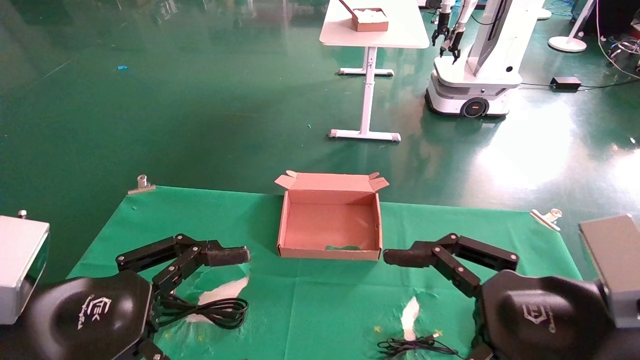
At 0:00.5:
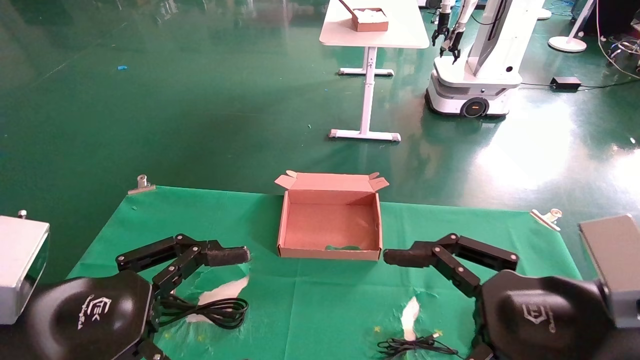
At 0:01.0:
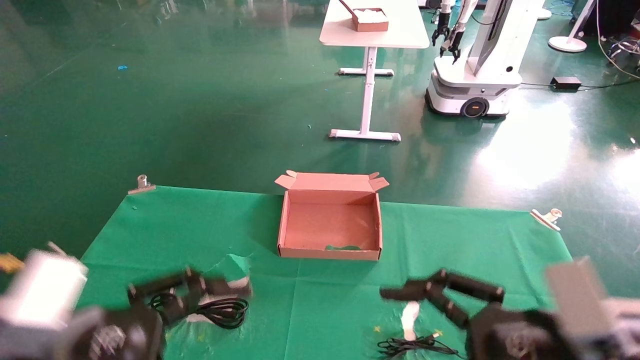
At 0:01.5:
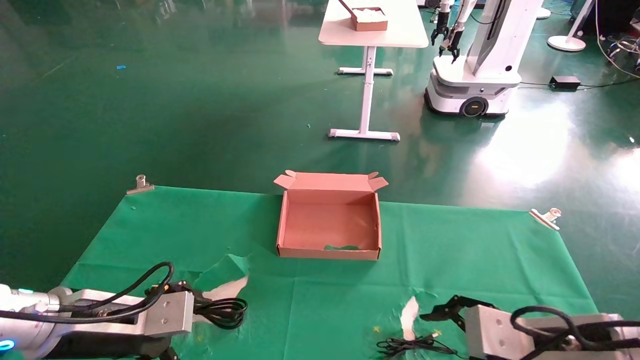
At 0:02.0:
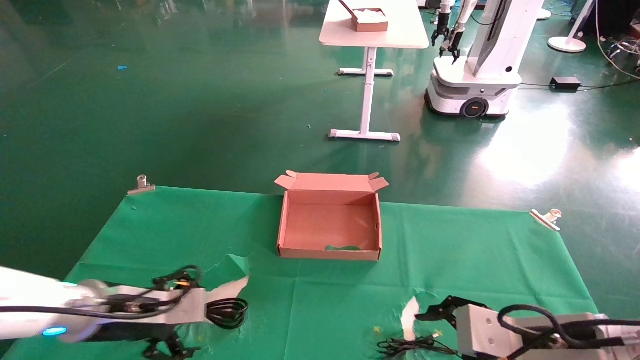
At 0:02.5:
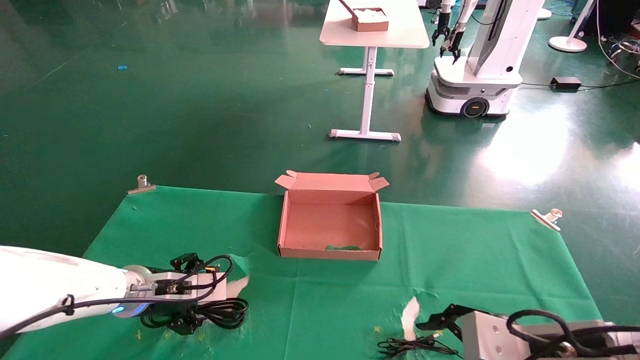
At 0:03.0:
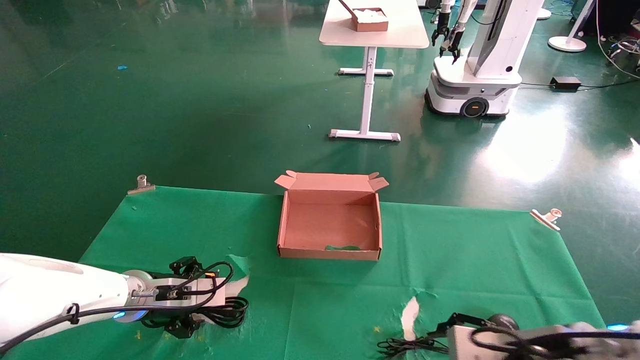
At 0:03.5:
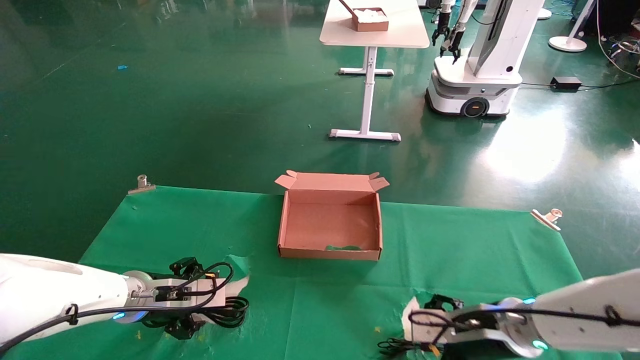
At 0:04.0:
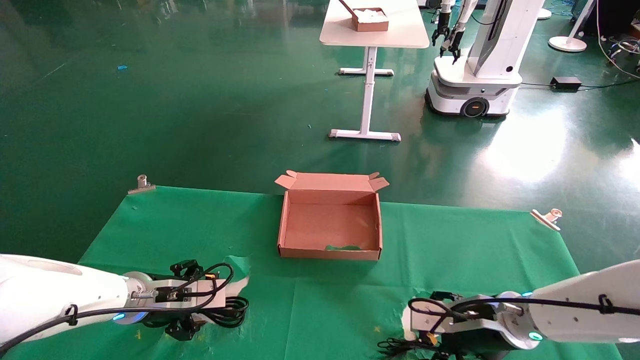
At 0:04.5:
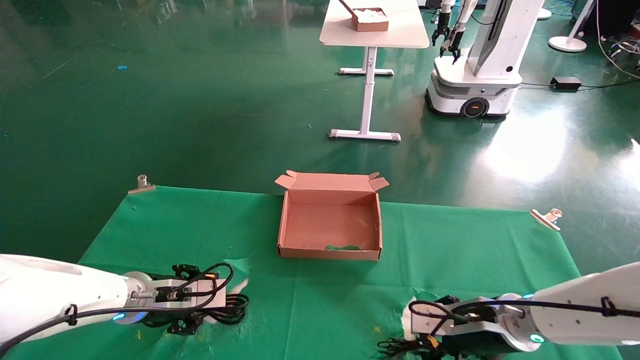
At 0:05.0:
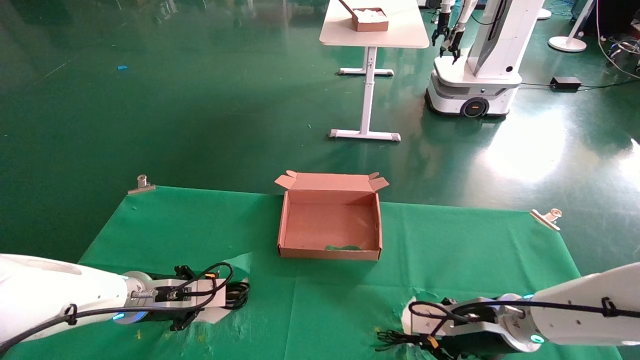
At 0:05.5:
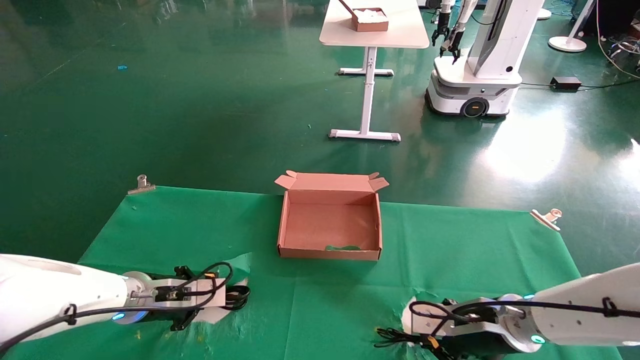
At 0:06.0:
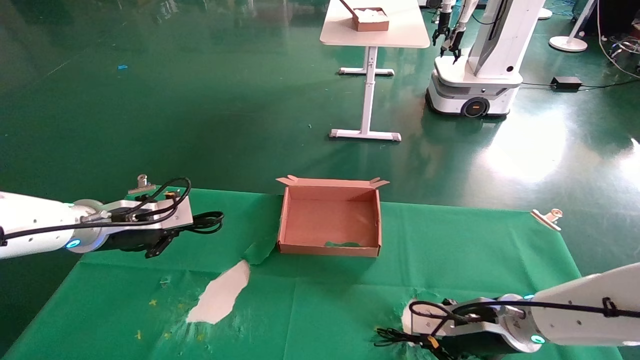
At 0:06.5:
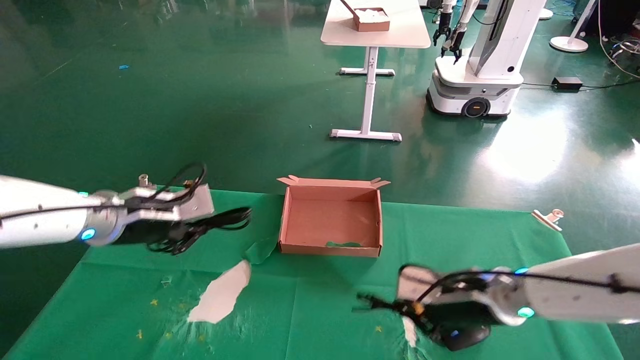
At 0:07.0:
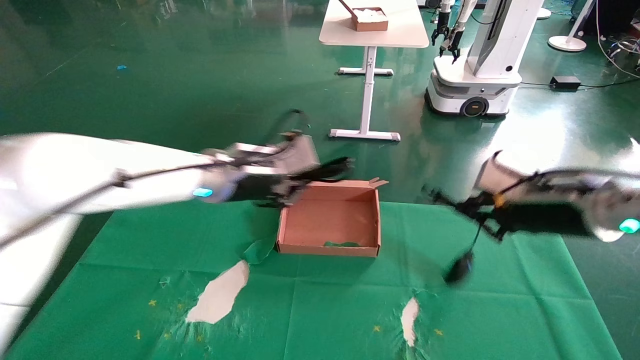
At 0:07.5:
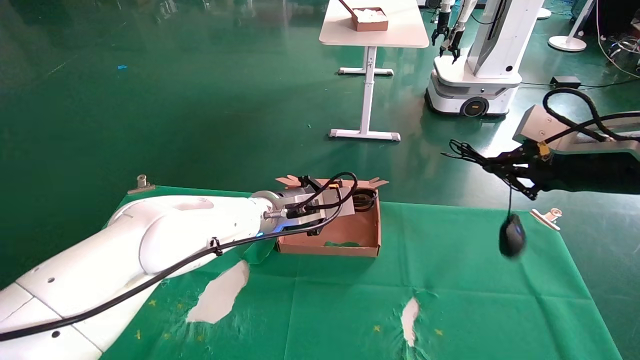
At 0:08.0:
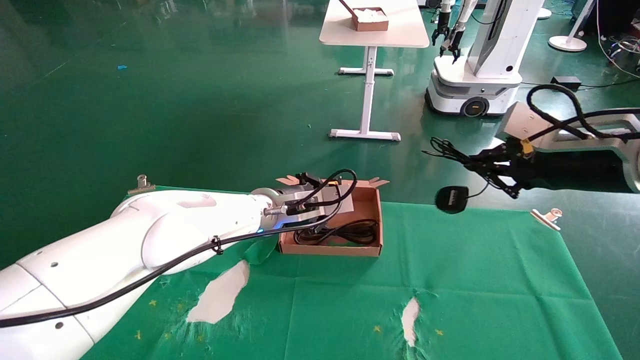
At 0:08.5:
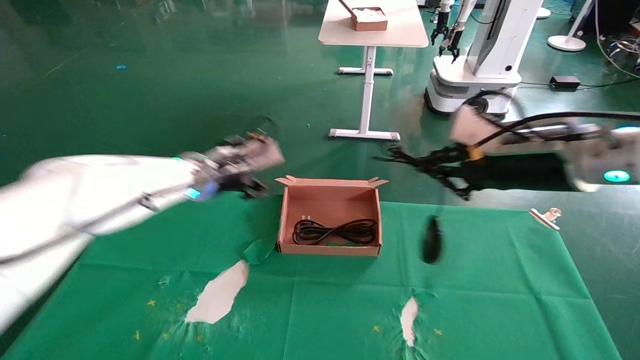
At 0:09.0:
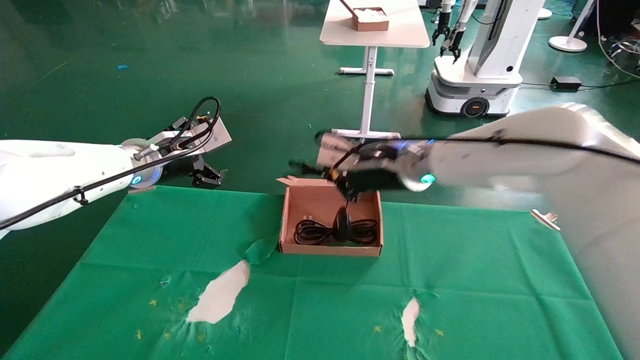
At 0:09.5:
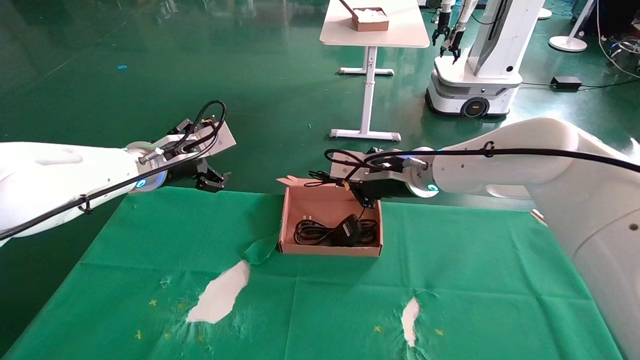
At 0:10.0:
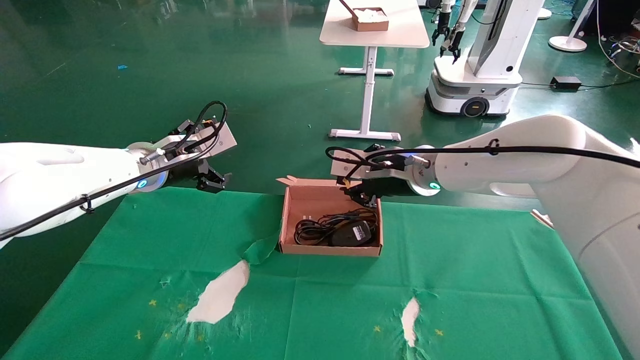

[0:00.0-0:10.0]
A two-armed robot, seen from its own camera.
Step, 0:02.0 to 0:04.5: Grab and lift both the mouse and power cord from the accessory packaging area at the same time.
0:00.0 to 0:02.0: The right gripper shifts roughly 10 cm downward and forward. Meanwhile the left gripper is displaced forward and downward by some 20 cm.
0:02.0 to 0:04.0: The left gripper moves forward, about 5 cm. Meanwhile the right gripper shifts approximately 15 cm forward and downward.
0:04.0 to 0:06.0: The left gripper is displaced upward by roughly 10 cm, and closes its fingers; the right gripper closes up.
0:06.0 to 0:08.0: The left gripper goes some 25 cm to the right; the right gripper heads upward, covering approximately 25 cm.
0:08.0 to 0:10.0: The right gripper heads to the left and forward, covering approximately 25 cm; the left gripper moves to the left and upward, about 20 cm, and opens.

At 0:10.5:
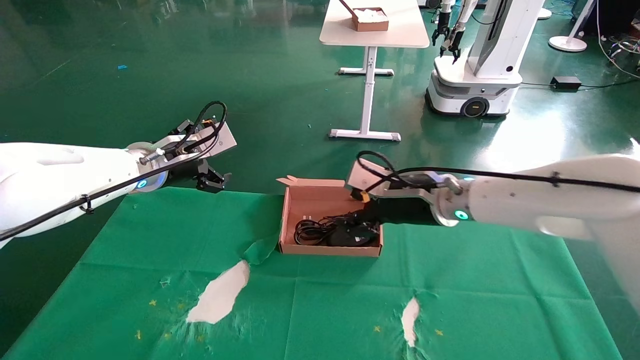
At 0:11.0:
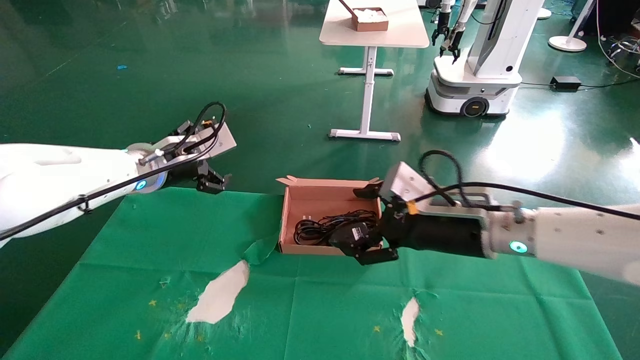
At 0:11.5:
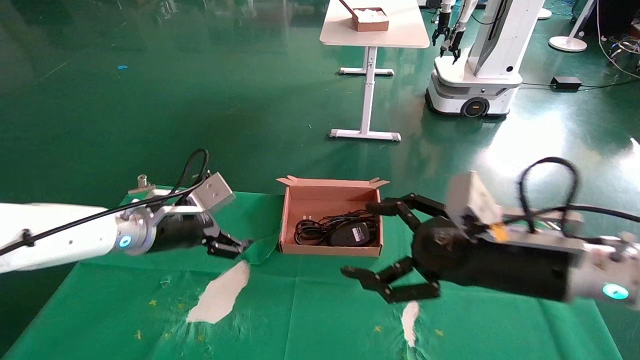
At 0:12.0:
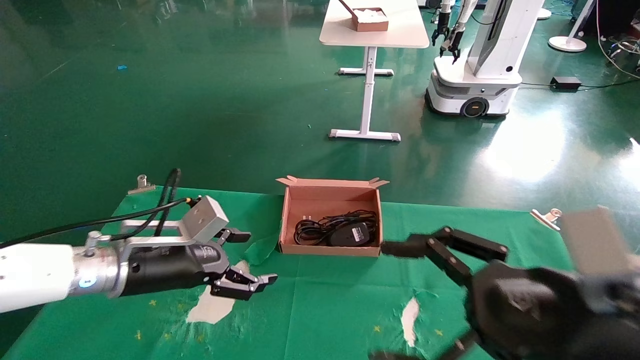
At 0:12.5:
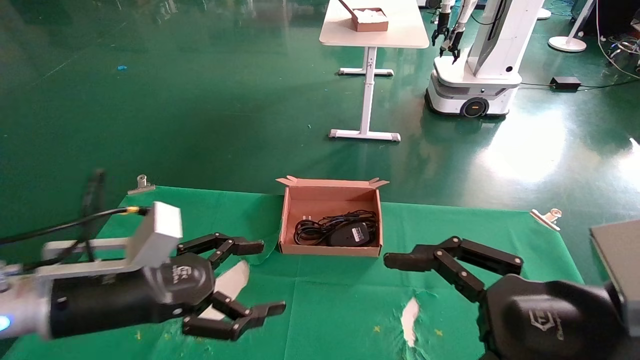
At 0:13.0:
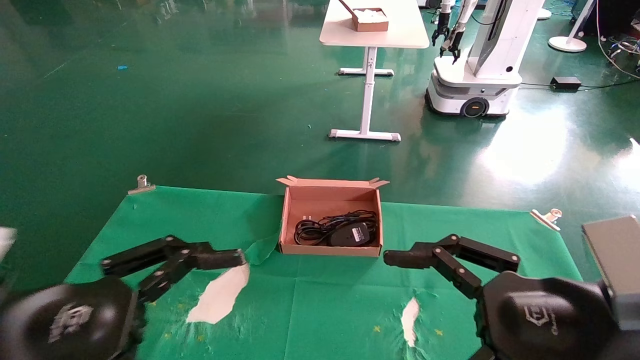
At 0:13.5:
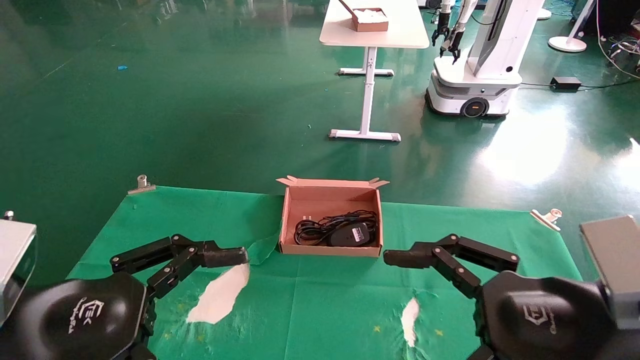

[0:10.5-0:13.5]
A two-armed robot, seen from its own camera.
0:10.5 to 0:12.0: The right gripper moves backward and to the right, about 25 cm, and opens its fingers, while the left gripper goes some 15 cm downward and backward.
0:12.0 to 0:13.5: The left gripper shifts approximately 15 cm backward.

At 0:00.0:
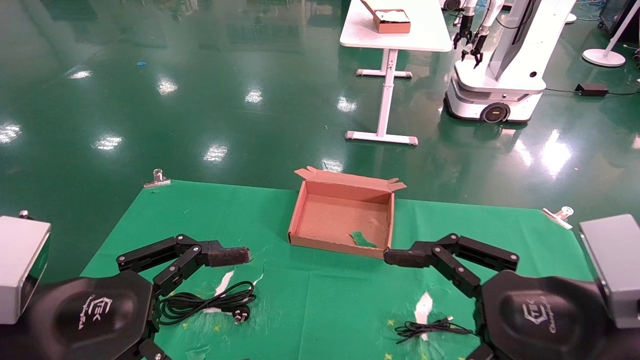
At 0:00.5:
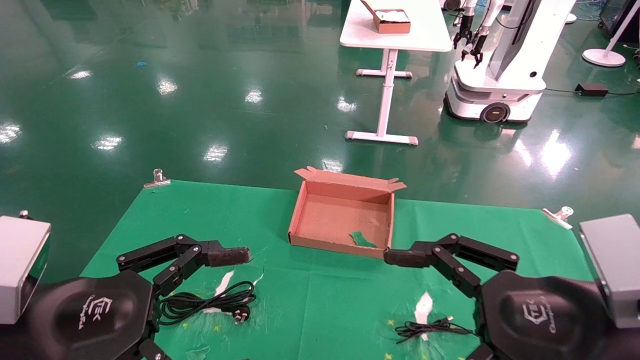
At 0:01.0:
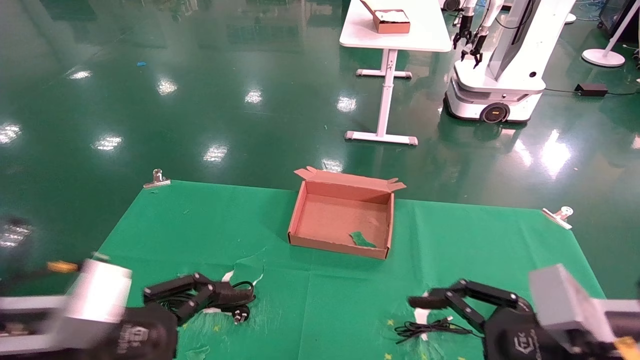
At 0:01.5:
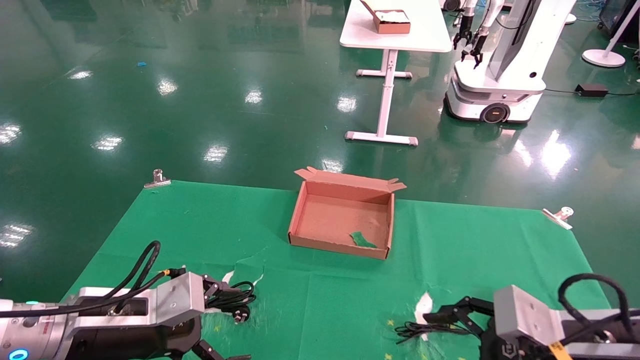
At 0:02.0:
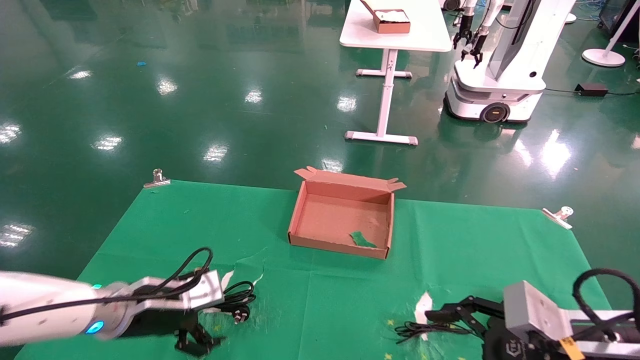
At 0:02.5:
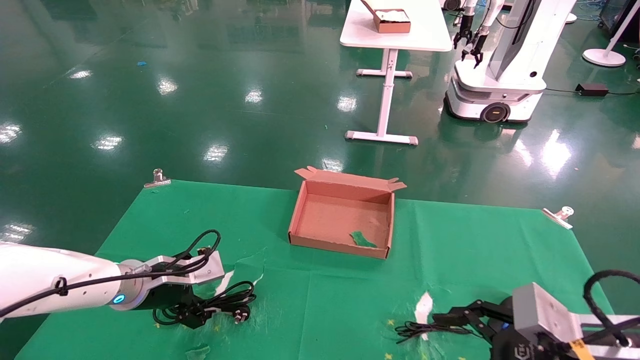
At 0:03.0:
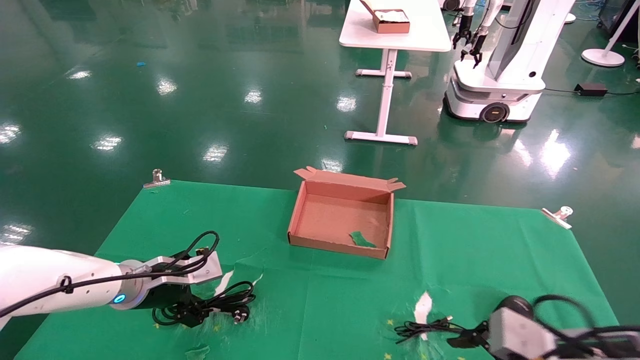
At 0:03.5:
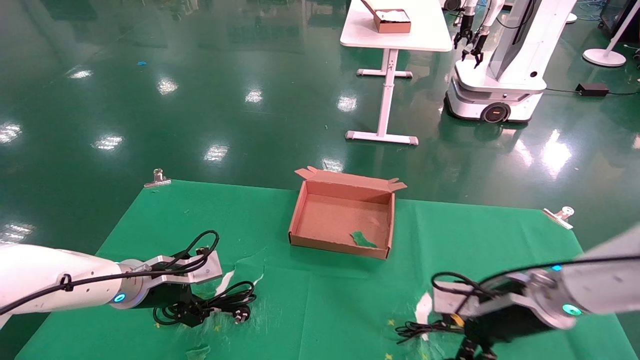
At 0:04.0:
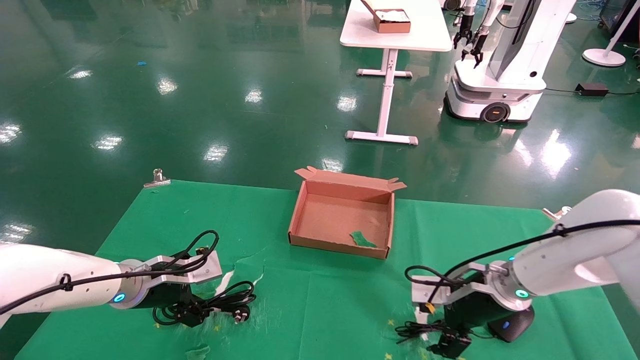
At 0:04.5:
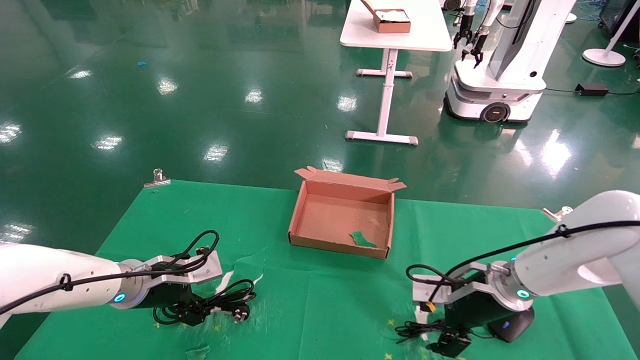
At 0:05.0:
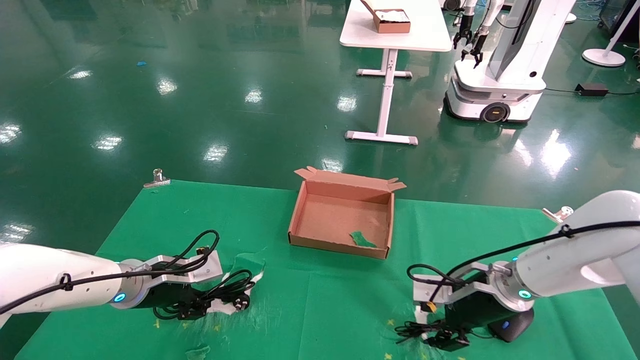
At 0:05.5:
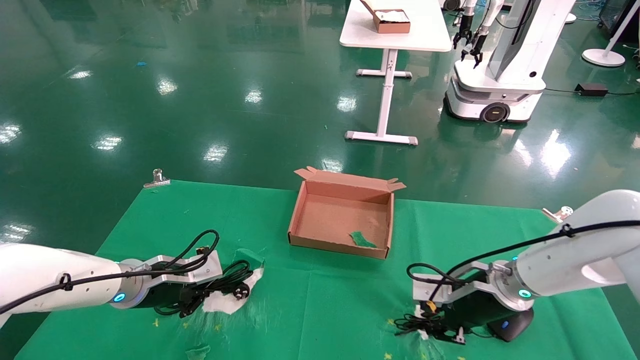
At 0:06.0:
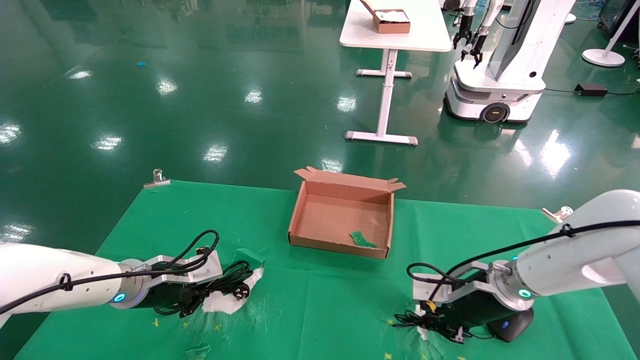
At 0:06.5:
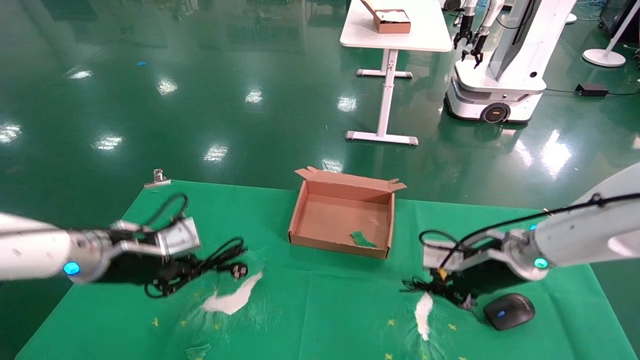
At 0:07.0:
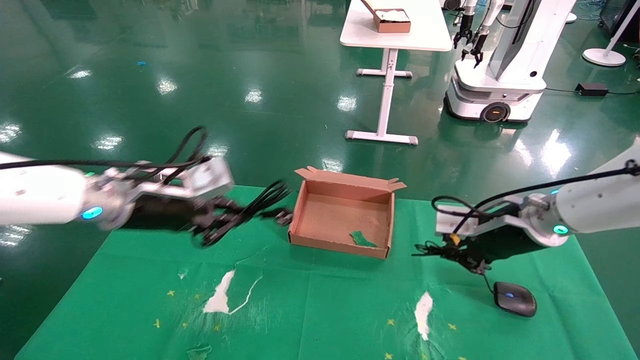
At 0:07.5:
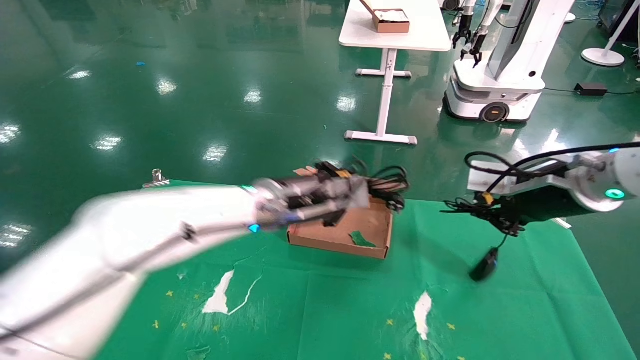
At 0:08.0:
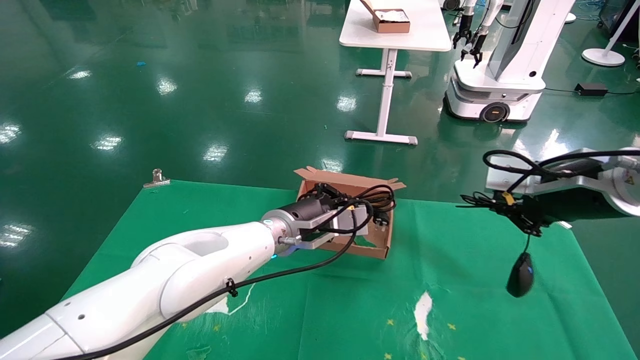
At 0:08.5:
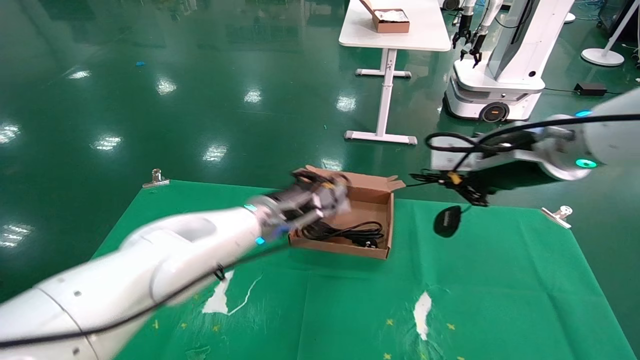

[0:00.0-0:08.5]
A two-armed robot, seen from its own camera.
Step, 0:01.5 to 0:06.5: Grab and lift both the mouse and power cord from the accessory packaging area at the same time.
0:00.0 to 0:02.0: The right gripper is displaced downward by roughly 10 cm; the left gripper is displaced forward and downward by roughly 20 cm.
0:02.0 to 0:04.0: The right gripper moves forward, some 20 cm, while the left gripper heads forward, covering some 5 cm.
0:04.0 to 0:06.5: Both grippers move upward, roughly 5 cm. The right gripper closes, while the left gripper closes its fingers.
0:06.5 to 0:08.5: The right gripper is displaced upward by some 15 cm, while the left gripper shifts about 20 cm to the right and forward.
